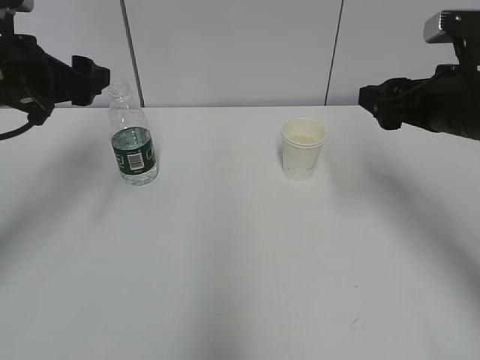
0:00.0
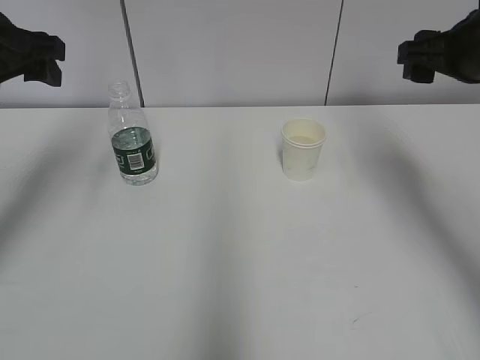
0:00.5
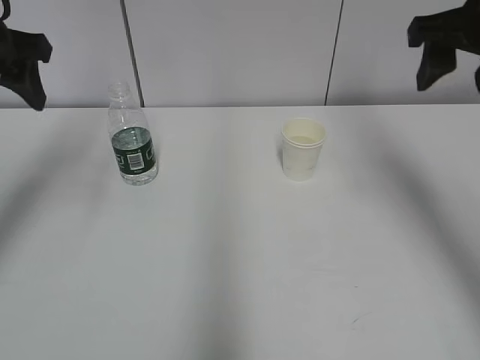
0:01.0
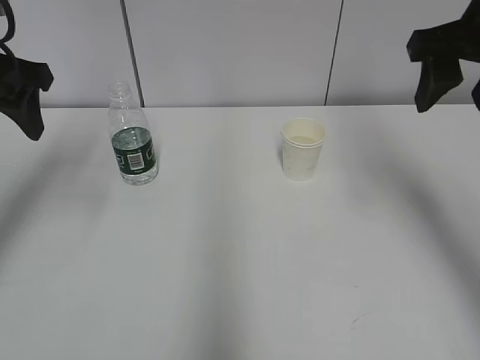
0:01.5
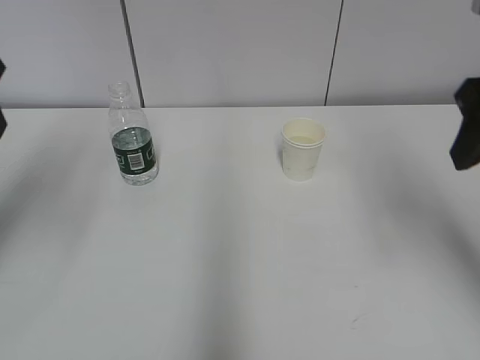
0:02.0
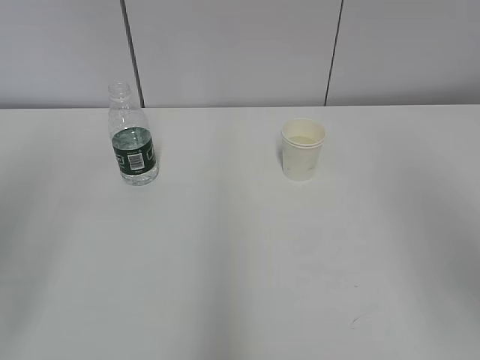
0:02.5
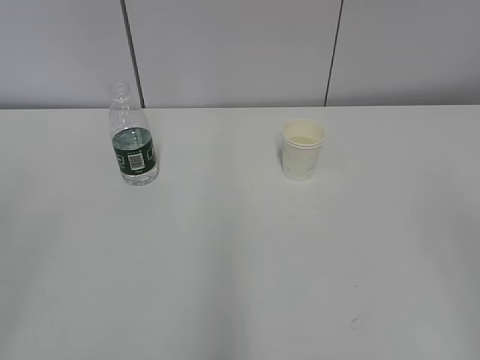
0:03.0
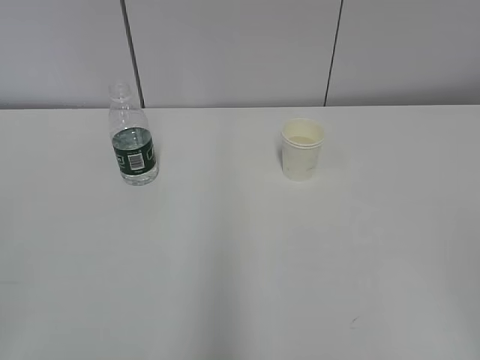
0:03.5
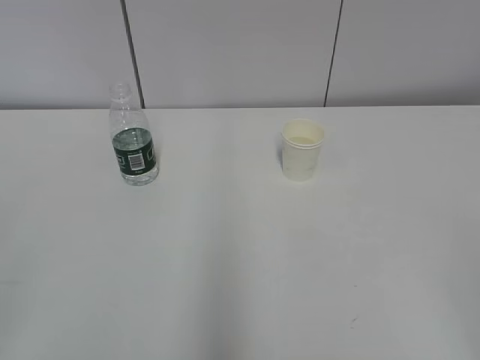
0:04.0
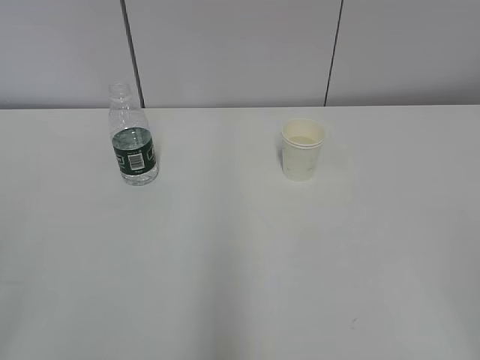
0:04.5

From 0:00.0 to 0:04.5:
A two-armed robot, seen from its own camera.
From 0:00.0 to 0:02.0: The grippers both shift upward and backward by approximately 15 cm.
From 0:02.0 to 0:04.5: Both grippers travel together backward, about 25 cm.

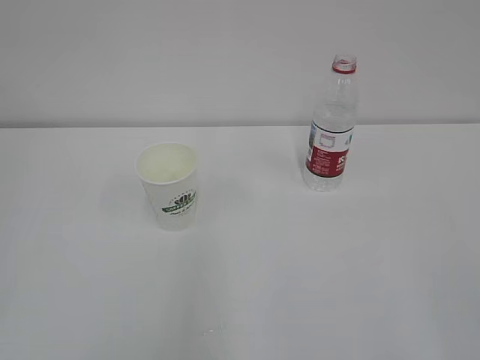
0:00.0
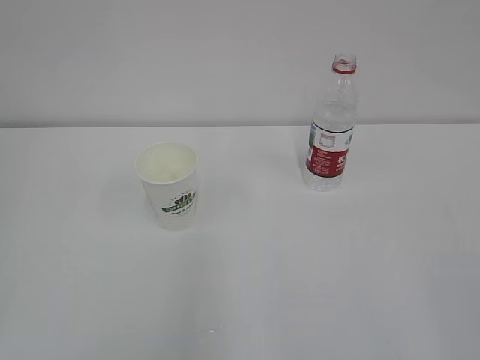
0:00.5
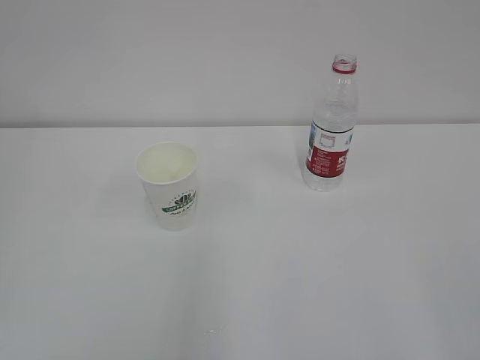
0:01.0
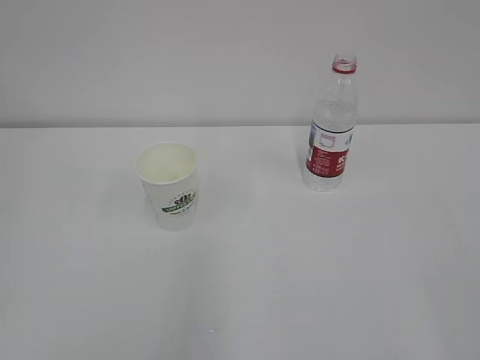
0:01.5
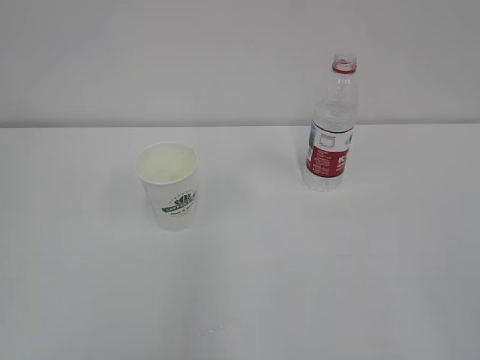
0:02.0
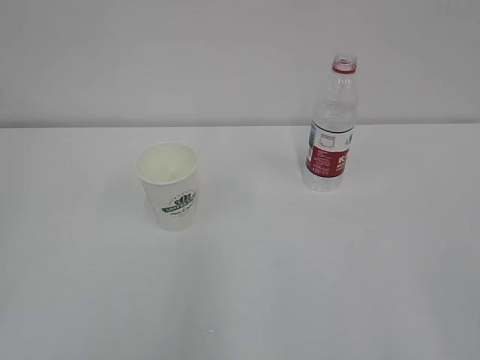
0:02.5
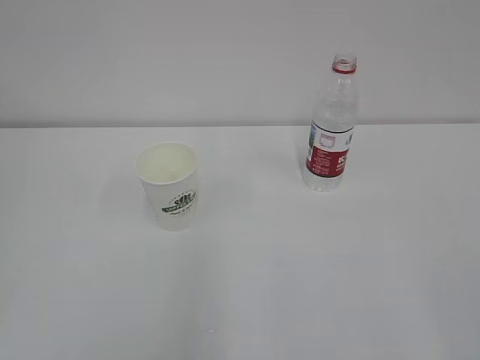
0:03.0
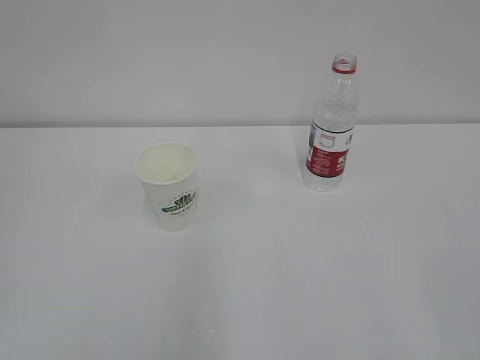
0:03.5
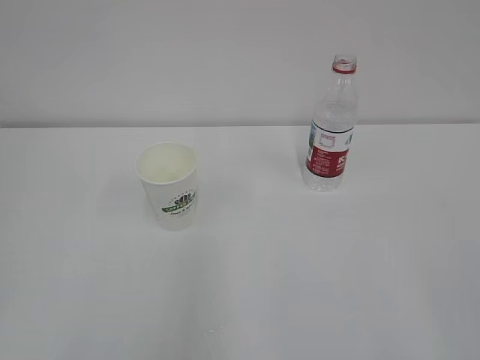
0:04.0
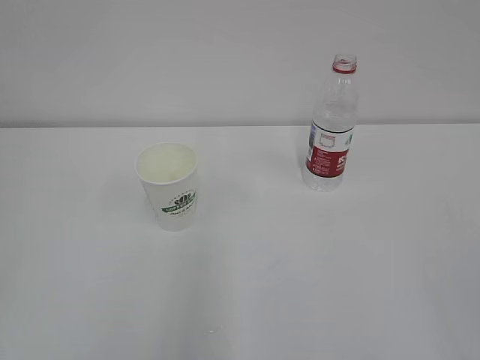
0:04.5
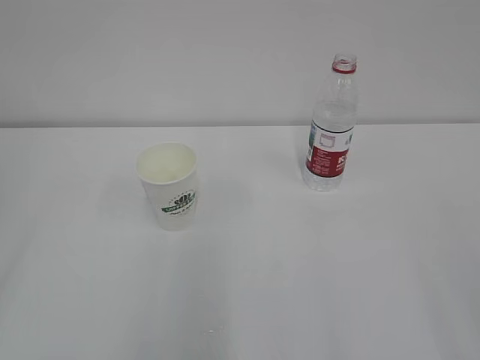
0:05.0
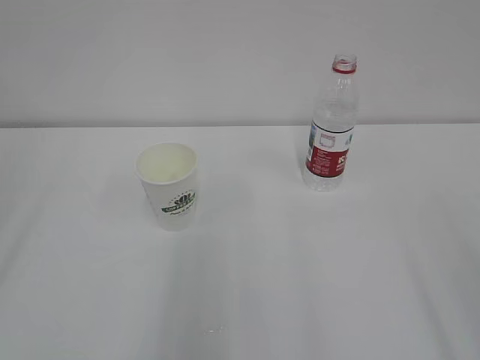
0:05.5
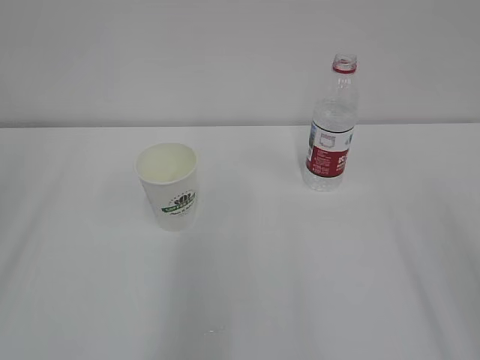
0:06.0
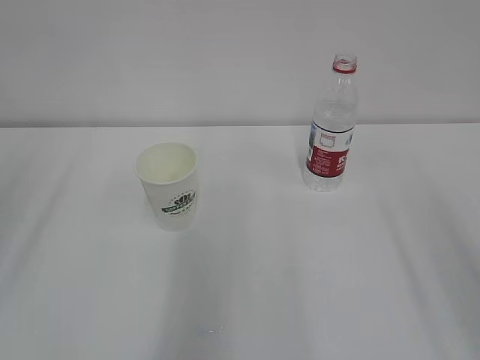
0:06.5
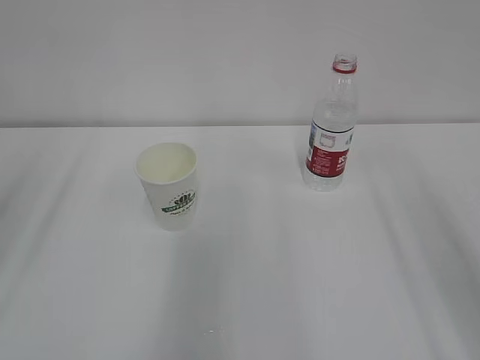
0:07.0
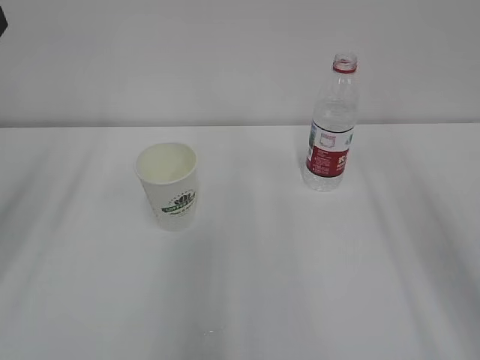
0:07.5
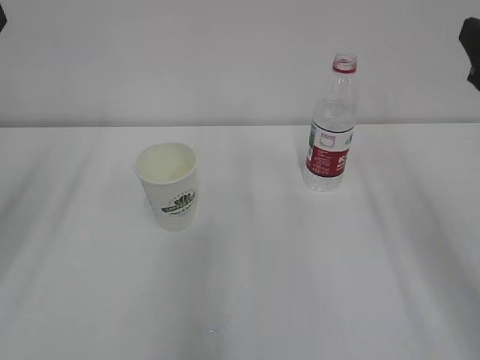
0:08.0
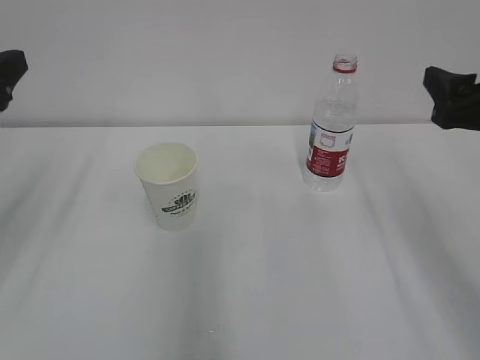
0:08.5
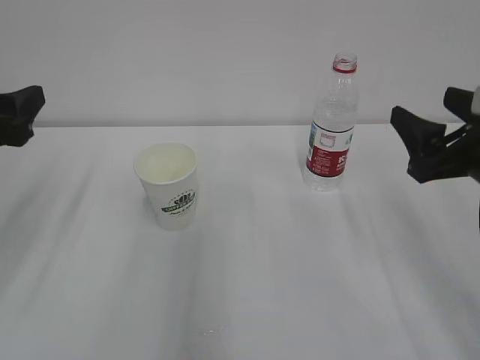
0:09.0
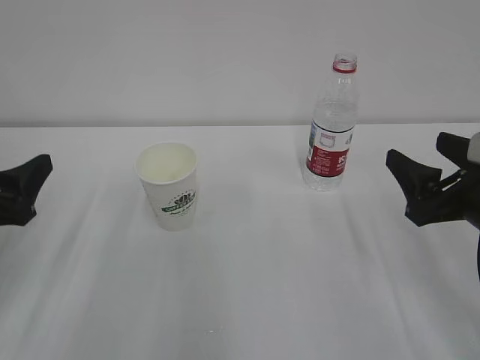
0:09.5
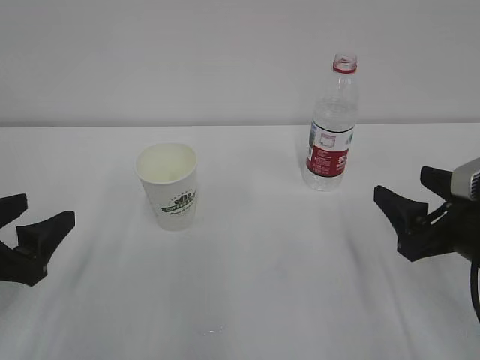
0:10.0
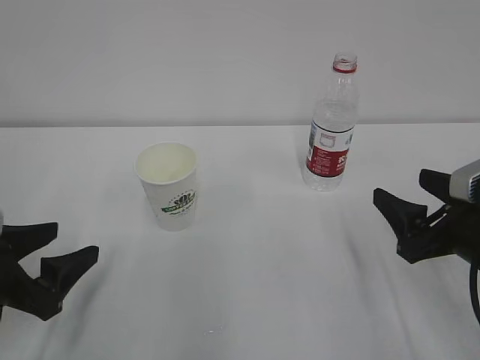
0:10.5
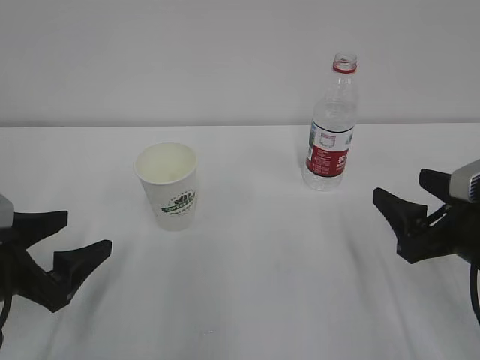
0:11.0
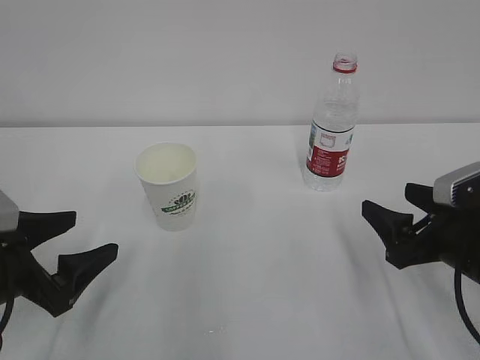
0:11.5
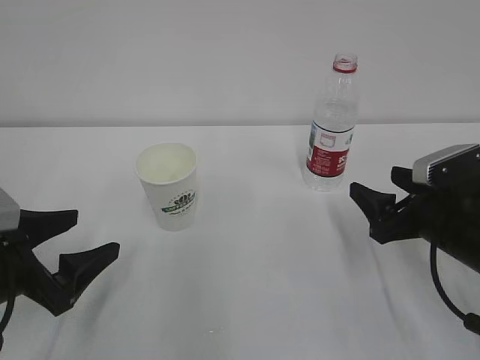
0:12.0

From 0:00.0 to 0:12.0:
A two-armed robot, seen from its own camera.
From 0:08.0 to 0:10.0: The grippers both shift downward by approximately 15 cm.
From 0:10.0 to 0:12.0: The right gripper changes place by about 5 cm.

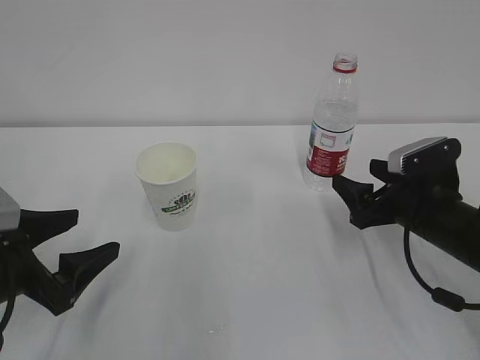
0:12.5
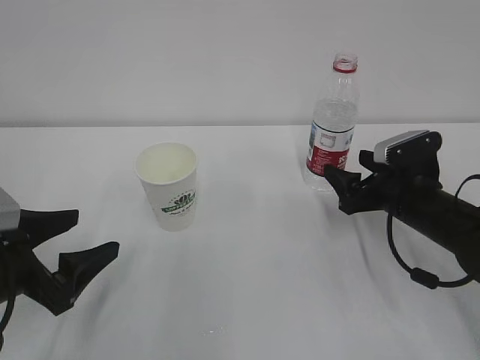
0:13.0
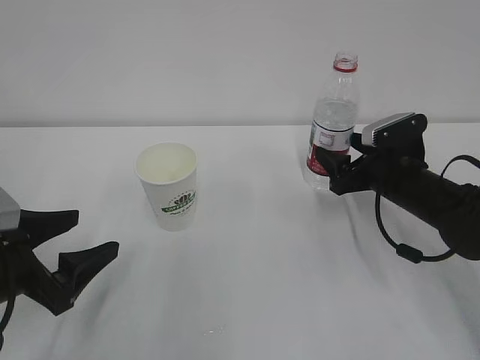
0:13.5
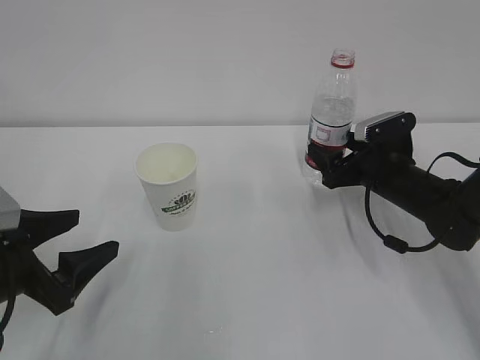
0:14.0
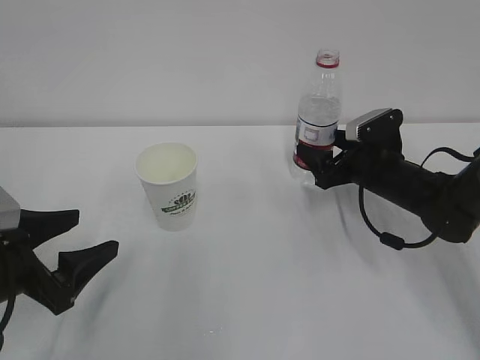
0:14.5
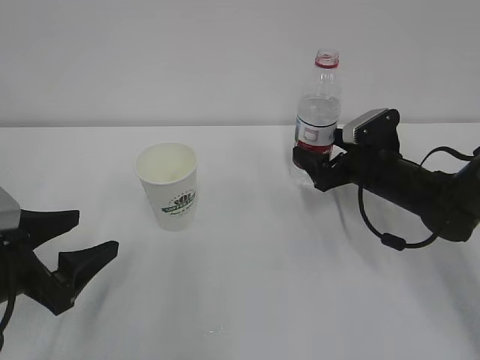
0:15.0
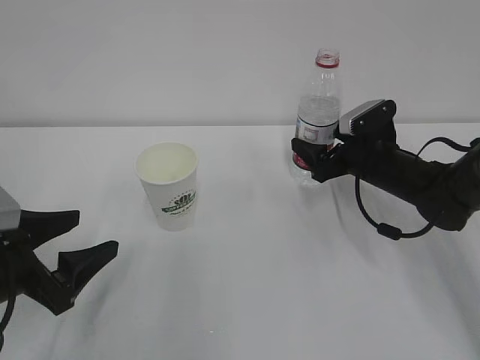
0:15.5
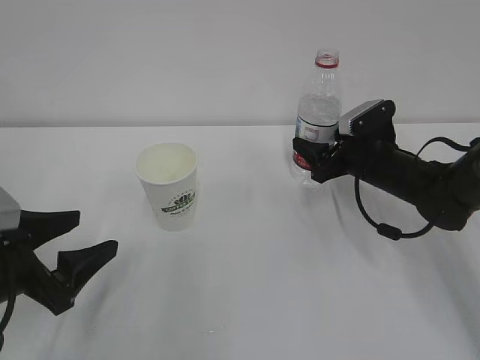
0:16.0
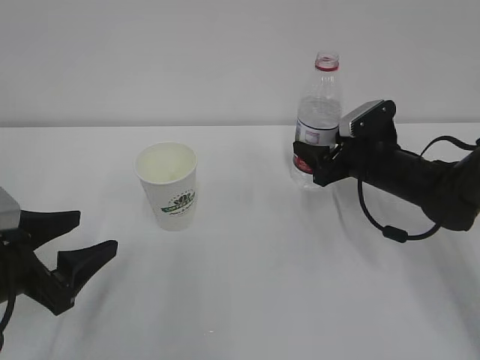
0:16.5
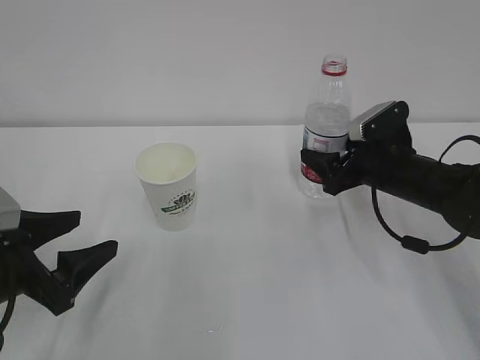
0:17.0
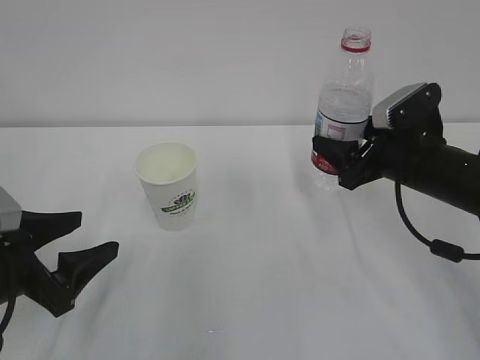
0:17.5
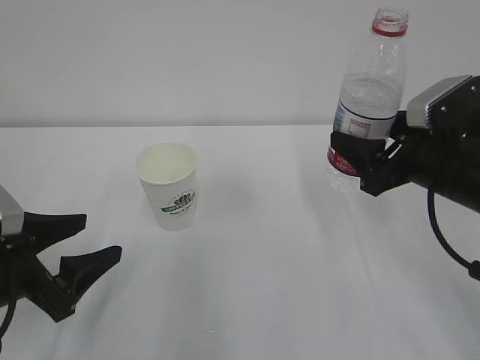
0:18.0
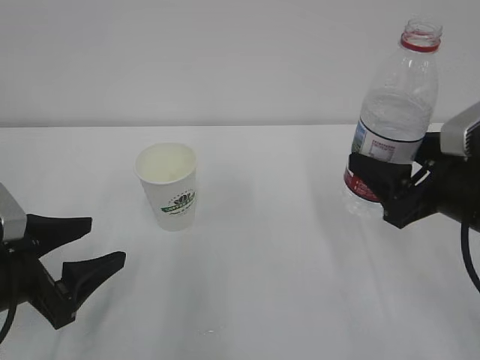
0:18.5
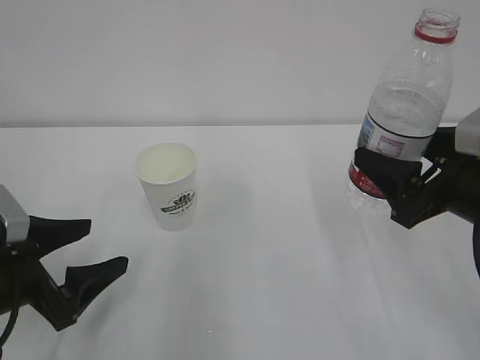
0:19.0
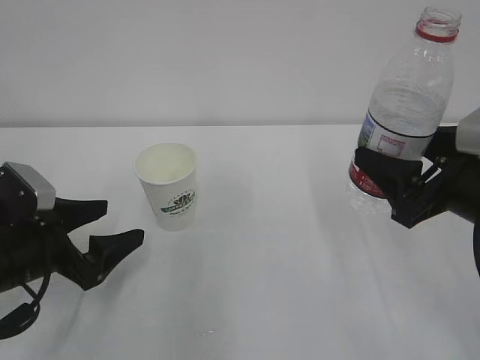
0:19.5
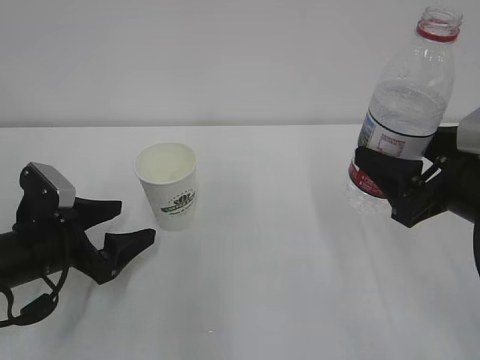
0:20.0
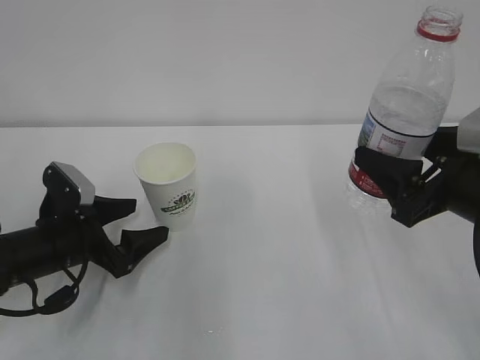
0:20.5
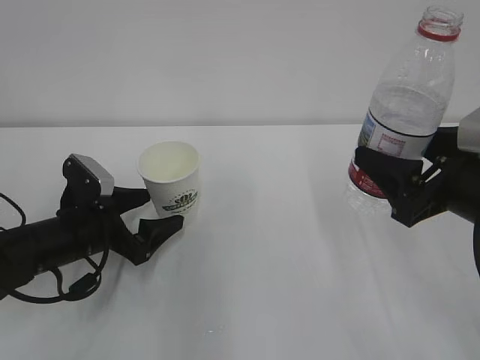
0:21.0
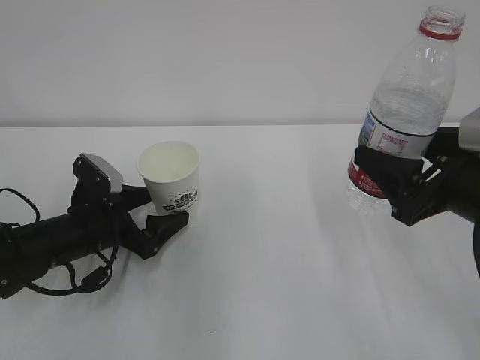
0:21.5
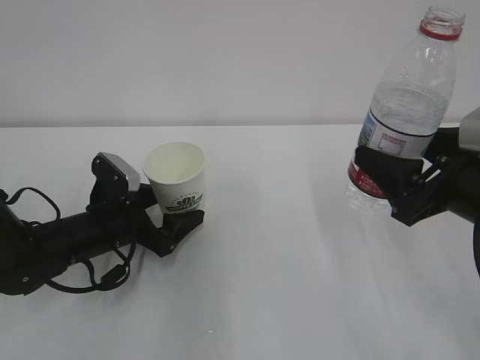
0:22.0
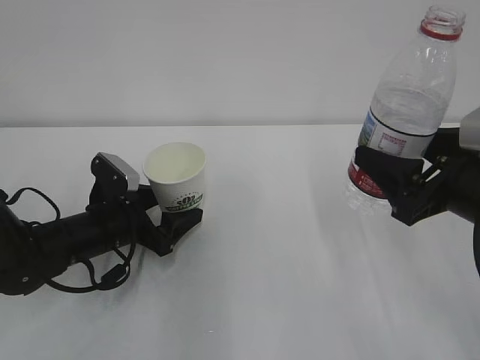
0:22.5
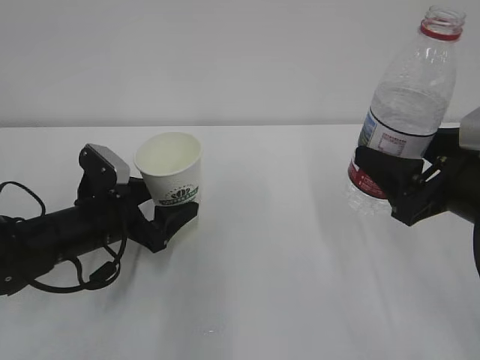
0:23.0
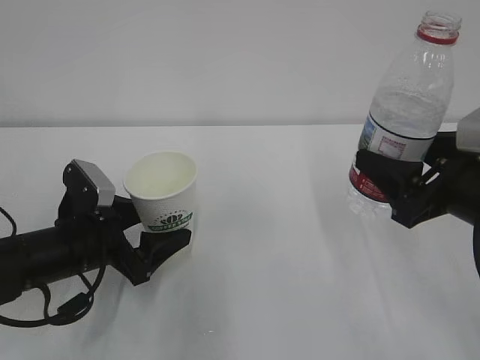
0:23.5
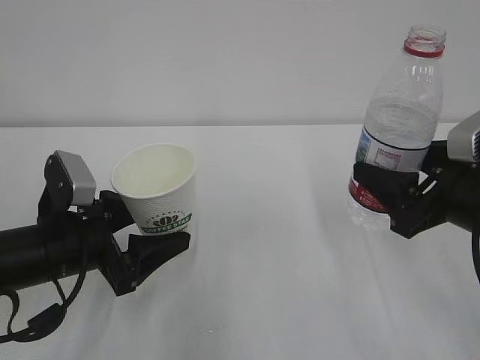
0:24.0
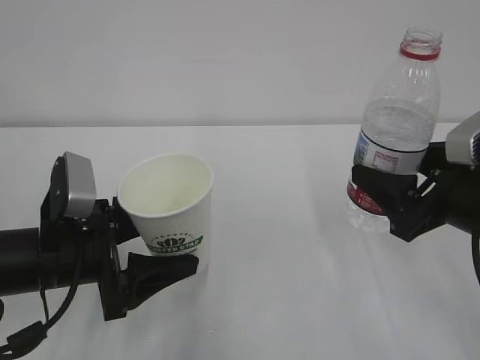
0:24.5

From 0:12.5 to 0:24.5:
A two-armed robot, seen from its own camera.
From 0:12.5 to 0:14.5: The right gripper is displaced forward by roughly 10 cm.
From 0:14.5 to 0:16.5: The right gripper closes up.
From 0:16.5 to 0:18.5: The right gripper goes about 20 cm backward and upward.
From 0:18.5 to 0:20.5: The left gripper goes roughly 10 cm forward.
From 0:20.5 to 0:22.5: The left gripper ends up approximately 5 cm from where it was.
From 0:22.5 to 0:24.5: The left gripper heads backward and upward, covering some 10 cm.
